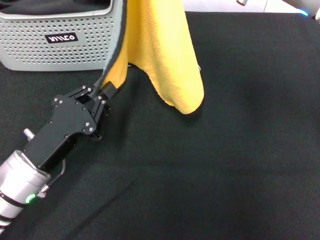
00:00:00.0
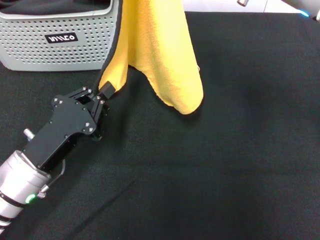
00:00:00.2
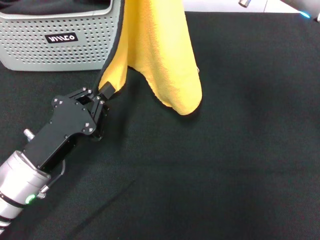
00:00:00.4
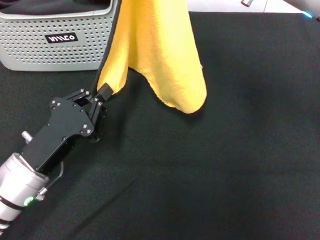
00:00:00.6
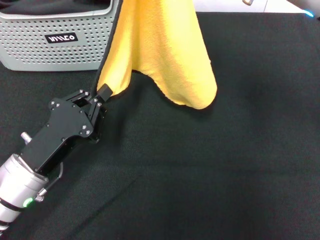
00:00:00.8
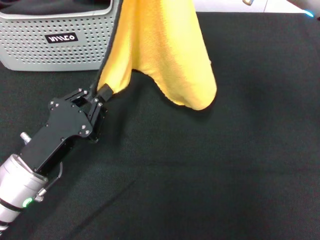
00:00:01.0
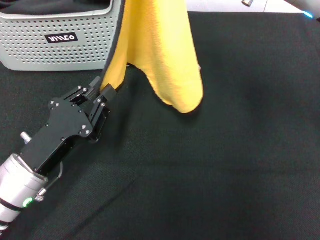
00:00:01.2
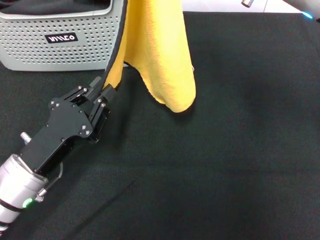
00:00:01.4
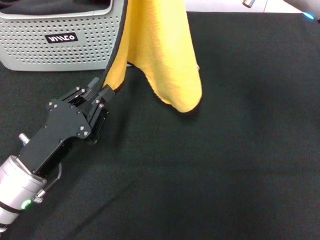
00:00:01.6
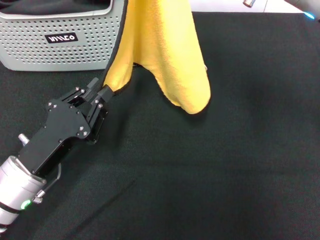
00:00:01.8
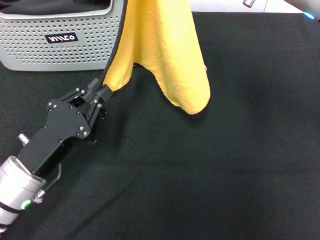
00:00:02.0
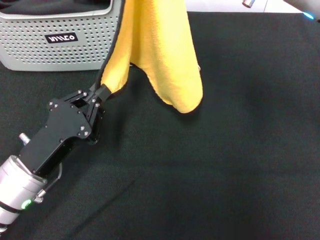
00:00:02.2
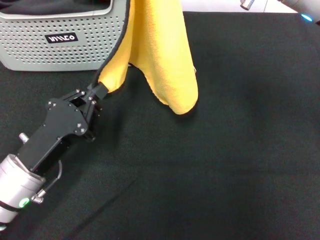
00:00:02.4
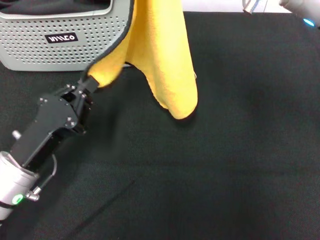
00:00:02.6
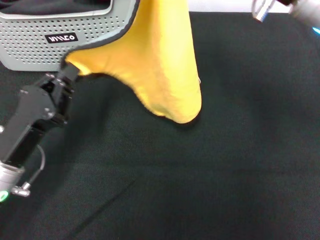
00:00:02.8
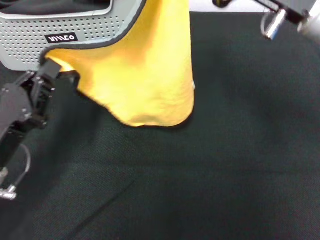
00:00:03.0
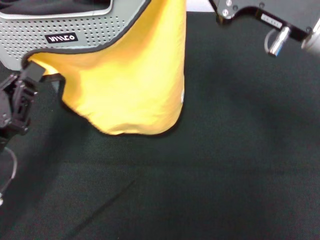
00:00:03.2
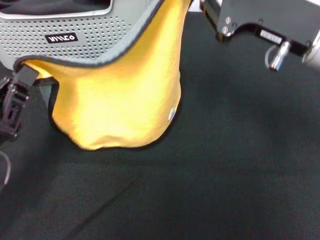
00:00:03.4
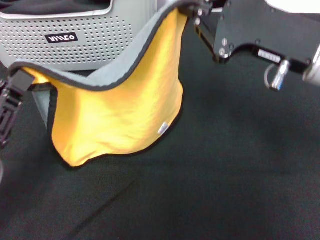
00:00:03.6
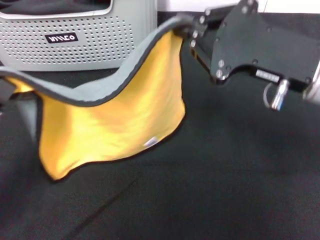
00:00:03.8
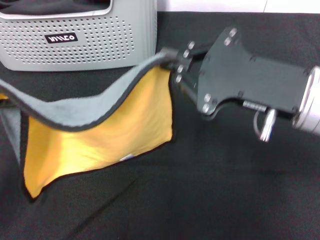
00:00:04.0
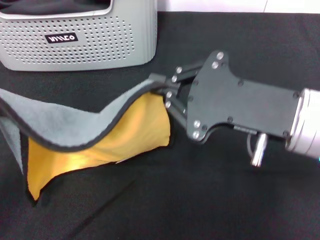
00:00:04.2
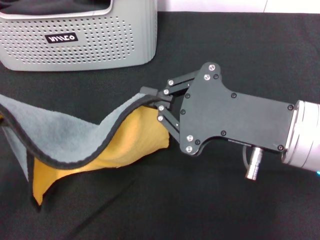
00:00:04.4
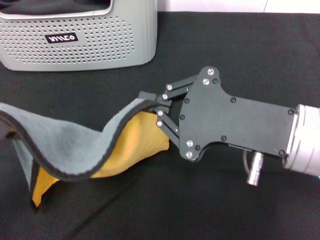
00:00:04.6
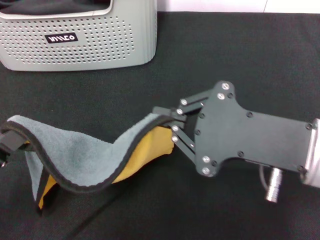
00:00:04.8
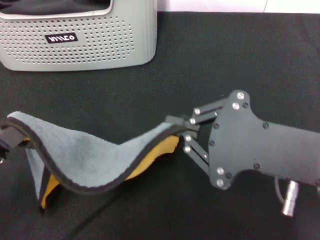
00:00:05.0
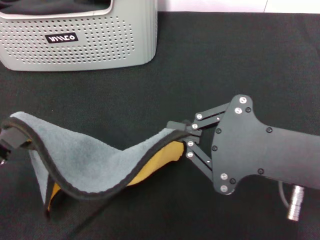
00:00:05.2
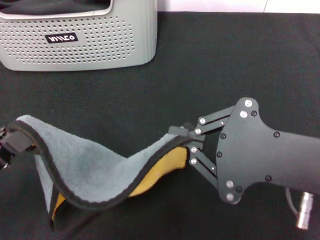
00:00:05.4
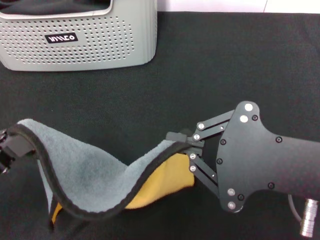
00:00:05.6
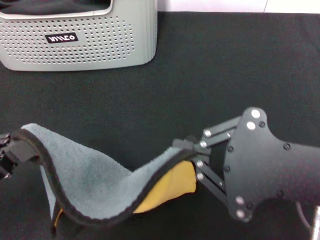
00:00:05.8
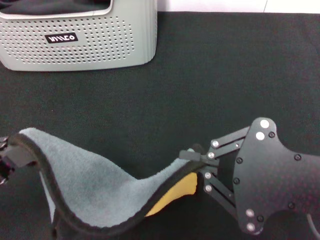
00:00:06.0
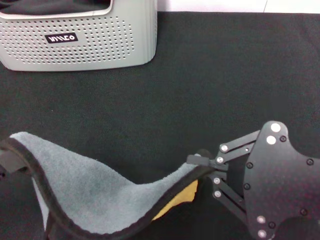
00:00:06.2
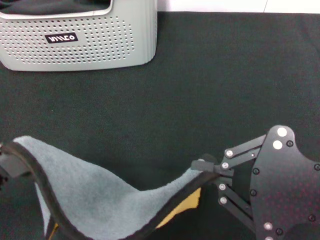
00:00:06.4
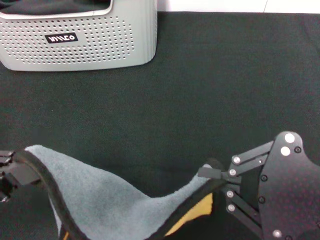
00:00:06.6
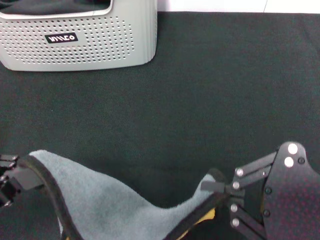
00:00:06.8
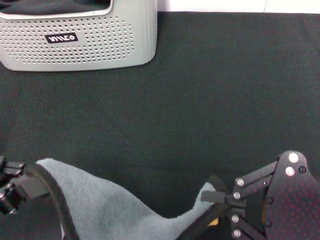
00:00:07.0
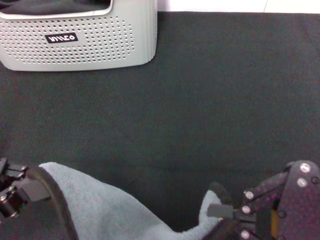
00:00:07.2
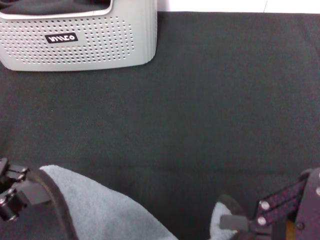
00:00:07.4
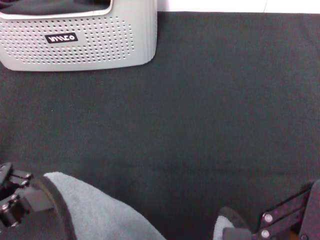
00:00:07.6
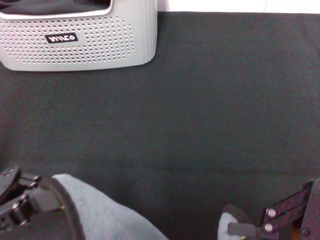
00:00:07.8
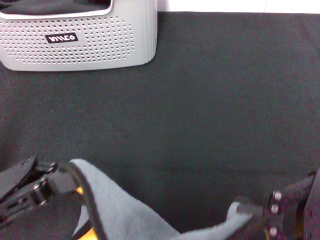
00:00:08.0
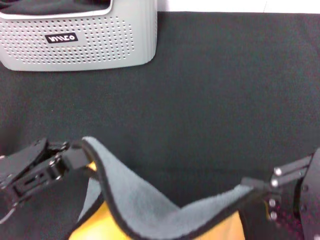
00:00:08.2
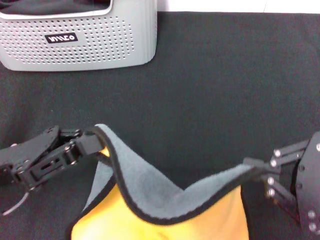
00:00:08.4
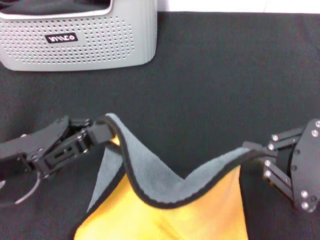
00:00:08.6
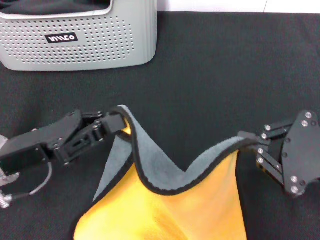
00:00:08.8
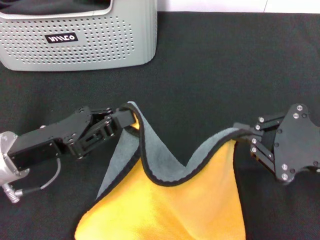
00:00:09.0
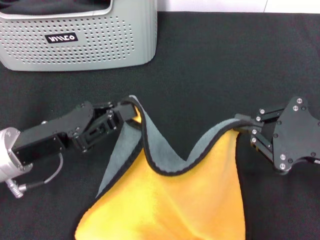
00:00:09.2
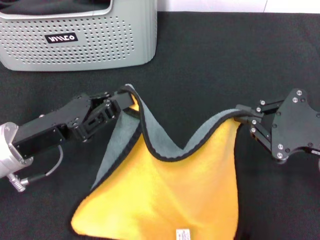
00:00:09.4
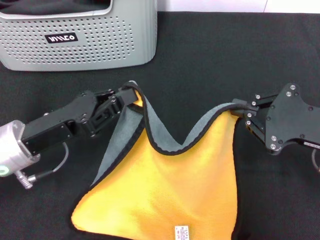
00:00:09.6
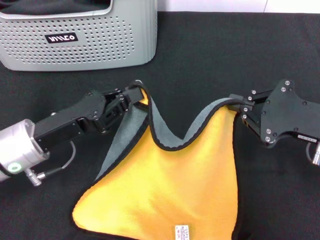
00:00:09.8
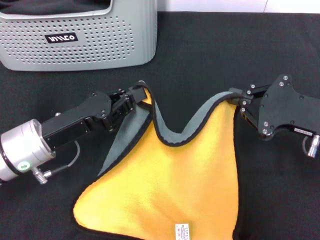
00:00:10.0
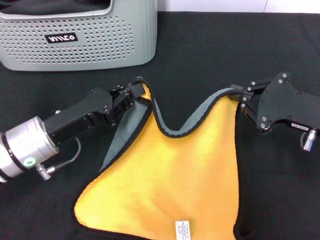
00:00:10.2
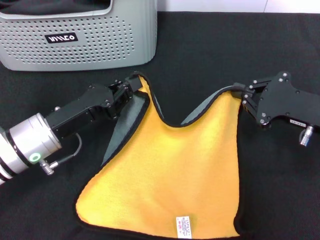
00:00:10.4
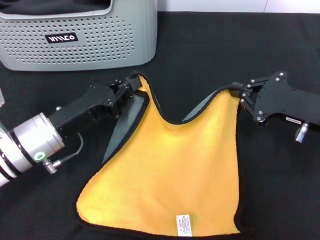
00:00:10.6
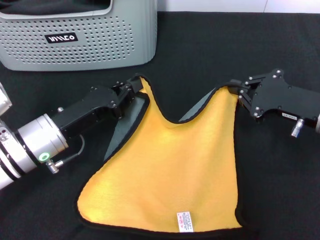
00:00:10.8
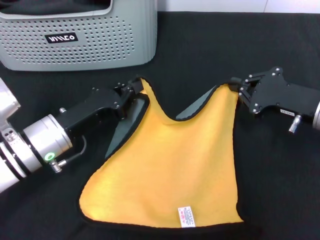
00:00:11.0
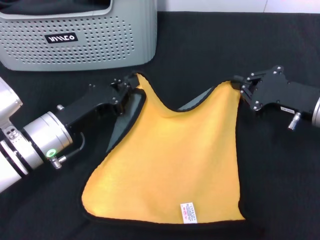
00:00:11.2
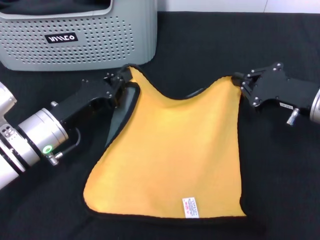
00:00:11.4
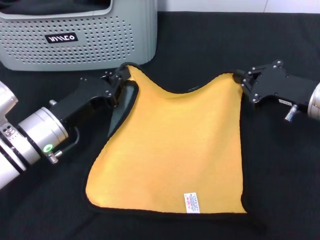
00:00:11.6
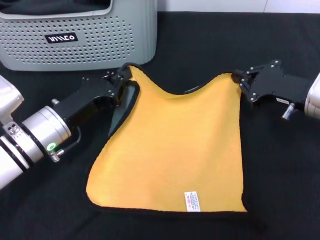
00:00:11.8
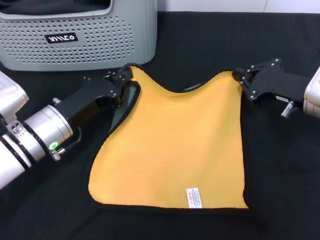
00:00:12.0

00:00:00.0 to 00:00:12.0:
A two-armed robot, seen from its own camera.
Task of the whole recording: pick up the towel from the storage box and lay it flat on the black tablecloth.
00:00:00.0 to 00:00:01.6: The two grippers keep their place.
00:00:03.0 to 00:00:04.4: The left gripper goes about 10 cm to the left and backward; the right gripper is displaced backward by approximately 10 cm.
00:00:04.4 to 00:00:06.0: The right gripper goes about 5 cm backward.
00:00:06.0 to 00:00:07.6: The right gripper changes place by some 5 cm.
00:00:07.6 to 00:00:09.0: The right gripper heads forward and downward, covering approximately 10 cm, while the left gripper shifts some 10 cm forward.
00:00:09.0 to 00:00:10.4: The left gripper changes place by roughly 5 cm, while the right gripper goes some 10 cm forward.
00:00:10.4 to 00:00:12.0: The right gripper travels forward by about 5 cm.

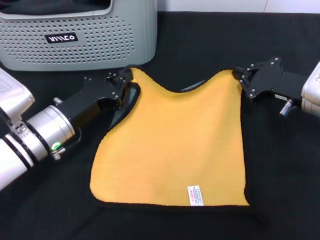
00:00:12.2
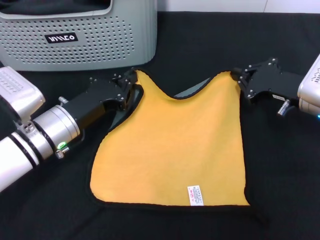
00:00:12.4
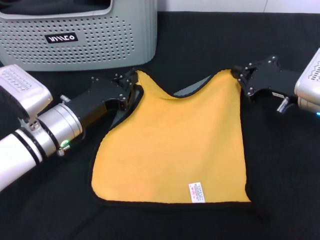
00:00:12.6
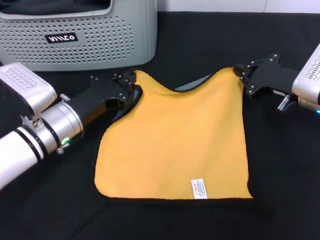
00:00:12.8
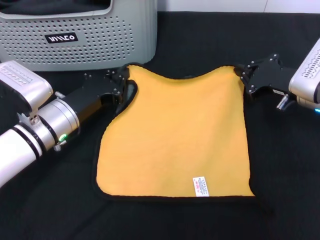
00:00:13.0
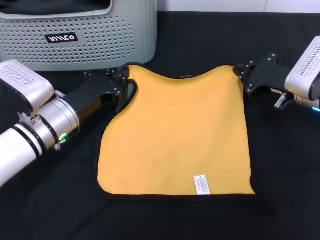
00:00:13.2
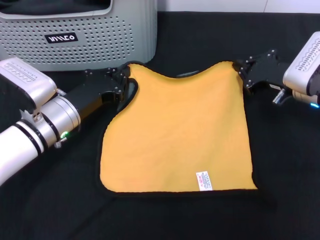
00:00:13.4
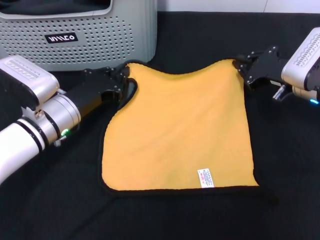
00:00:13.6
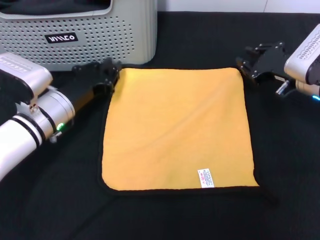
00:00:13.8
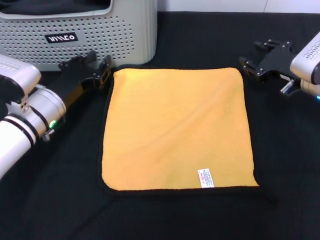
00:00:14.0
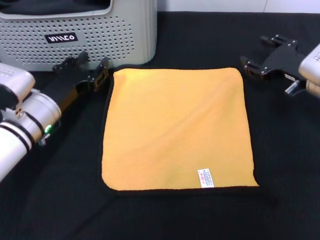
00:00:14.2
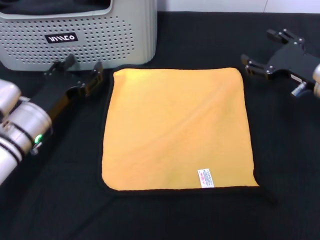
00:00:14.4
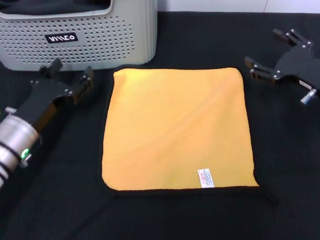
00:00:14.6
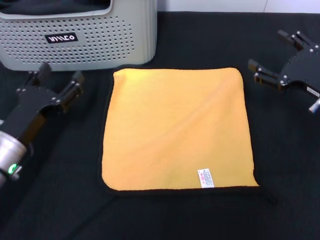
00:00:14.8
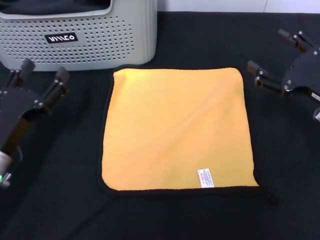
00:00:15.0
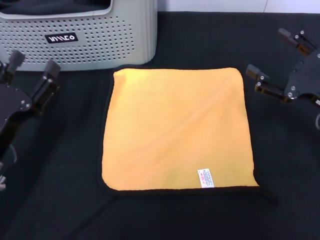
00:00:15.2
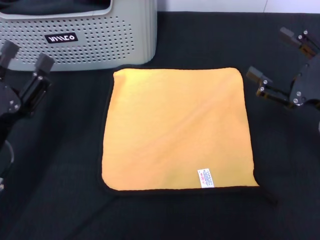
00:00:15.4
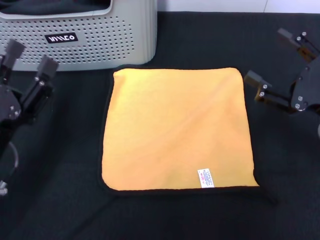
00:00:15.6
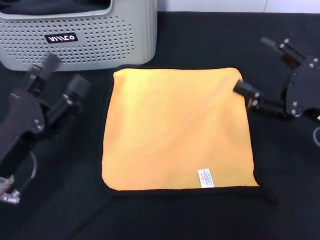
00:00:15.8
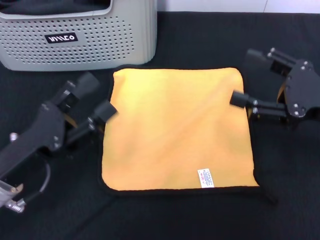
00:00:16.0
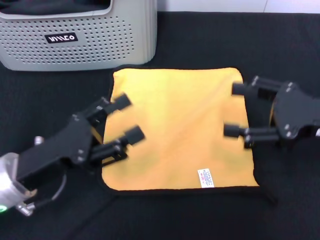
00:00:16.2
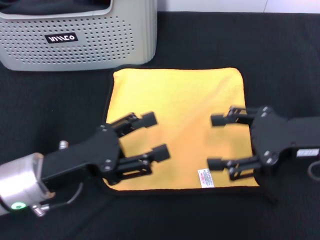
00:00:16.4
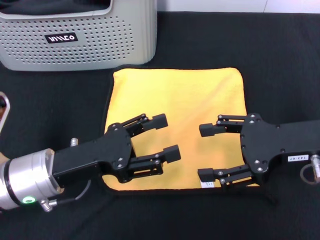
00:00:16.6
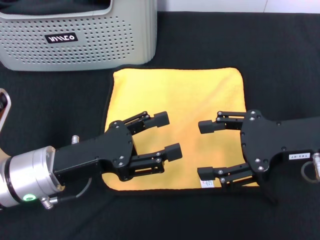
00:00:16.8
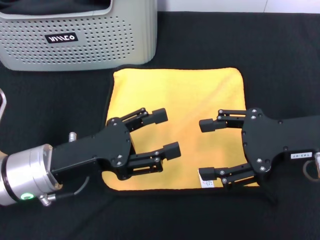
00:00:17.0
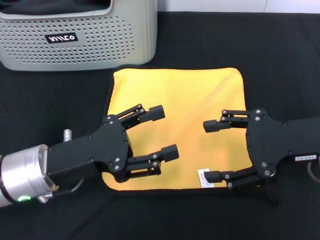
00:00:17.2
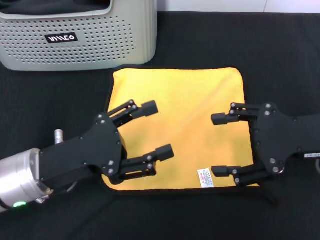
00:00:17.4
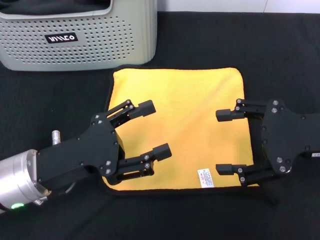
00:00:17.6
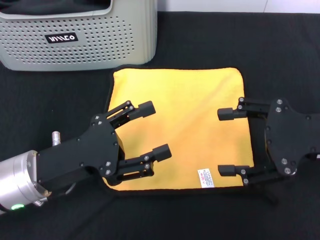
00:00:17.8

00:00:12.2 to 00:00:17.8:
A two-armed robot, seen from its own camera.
Task of the whole recording: pick up the towel from the storage box and lay it flat on the black tablecloth.
00:00:13.6 to 00:00:15.0: The left gripper shifts some 10 cm backward and to the left, and opens up. Meanwhile the right gripper shifts about 10 cm backward, and opens its fingers.
00:00:15.0 to 00:00:16.4: The left gripper goes some 5 cm to the right. Meanwhile the right gripper travels upward by some 5 cm.
00:00:16.4 to 00:00:17.8: The grippers move only a little.
